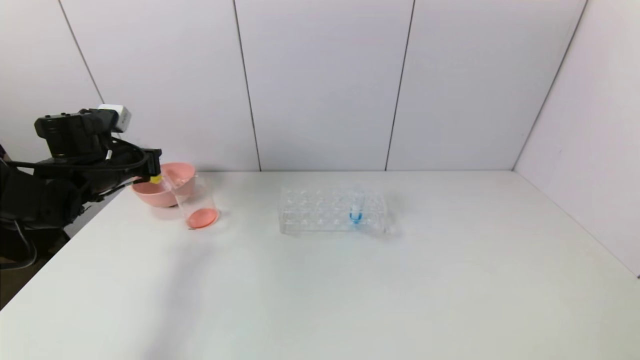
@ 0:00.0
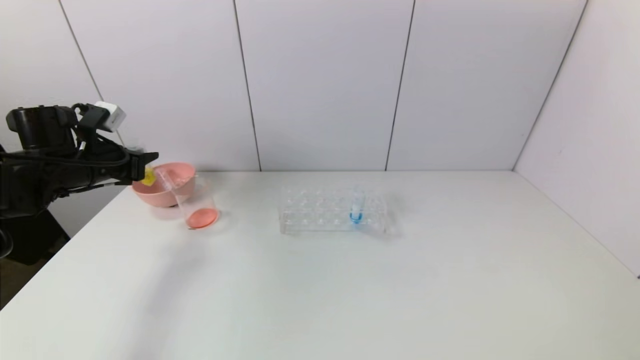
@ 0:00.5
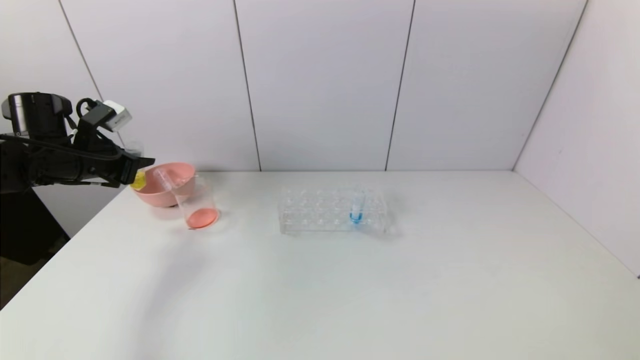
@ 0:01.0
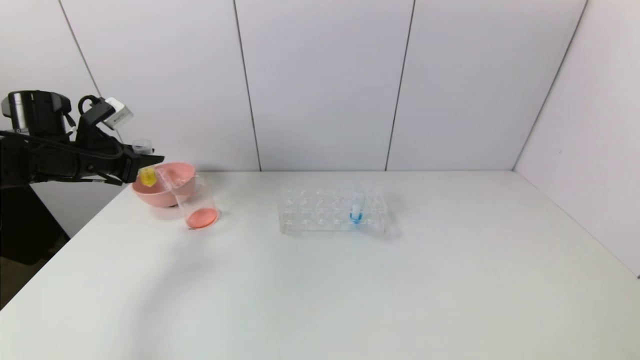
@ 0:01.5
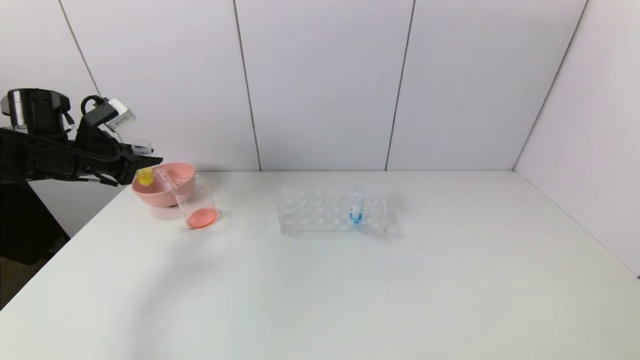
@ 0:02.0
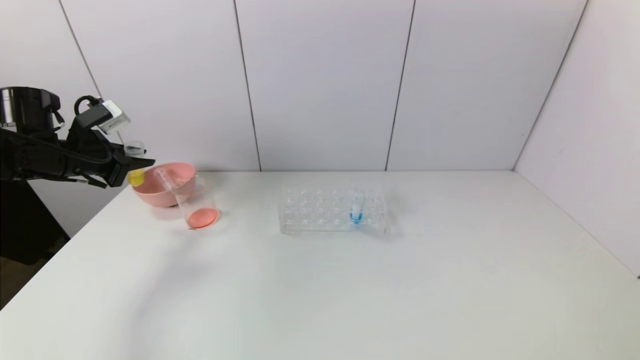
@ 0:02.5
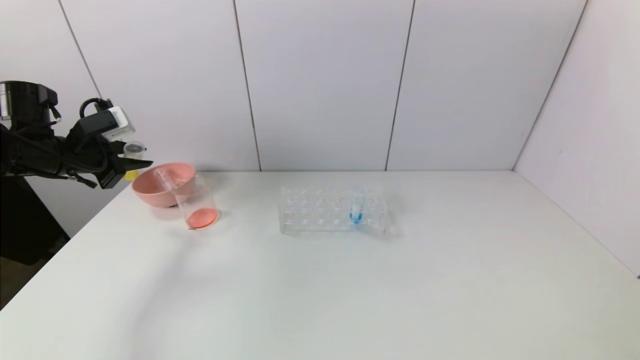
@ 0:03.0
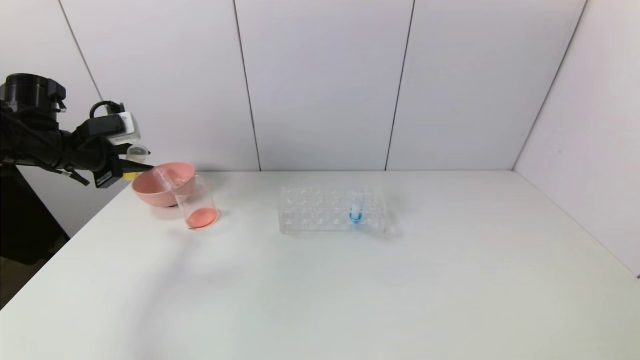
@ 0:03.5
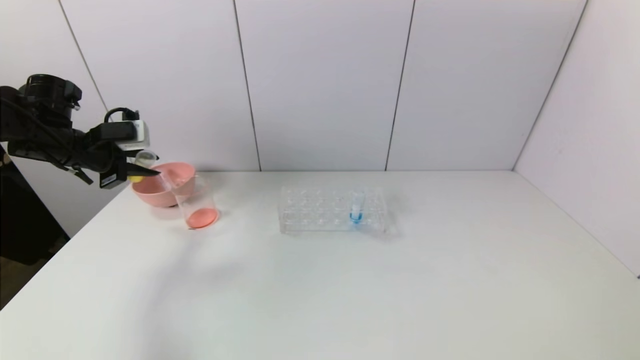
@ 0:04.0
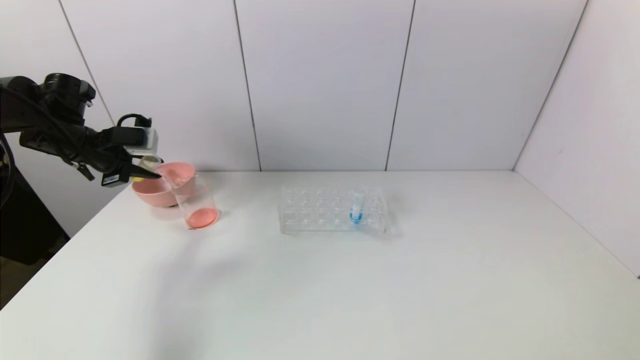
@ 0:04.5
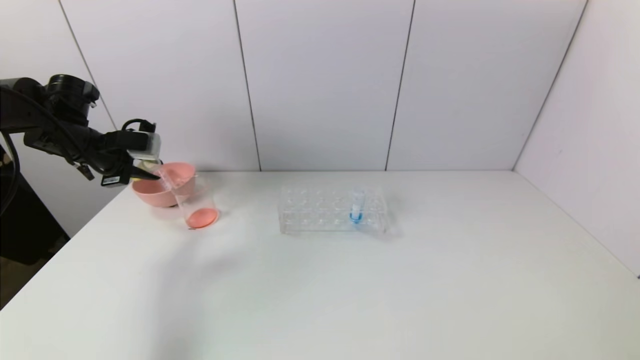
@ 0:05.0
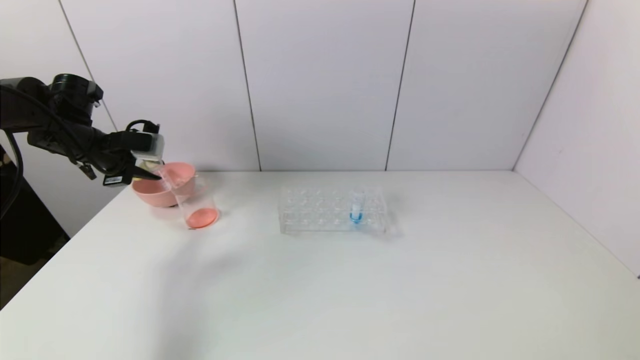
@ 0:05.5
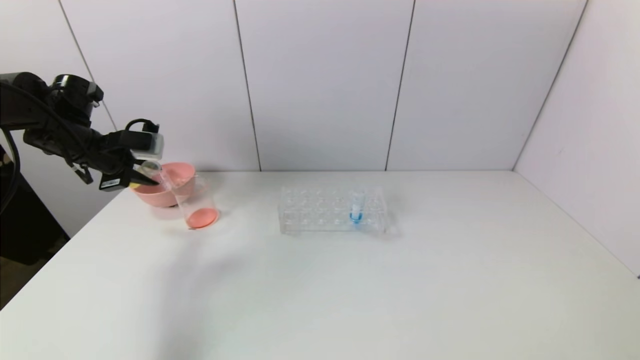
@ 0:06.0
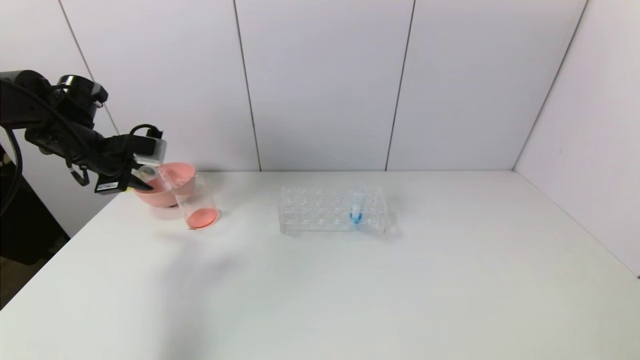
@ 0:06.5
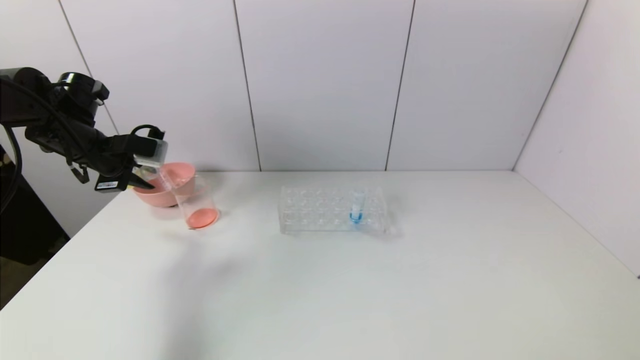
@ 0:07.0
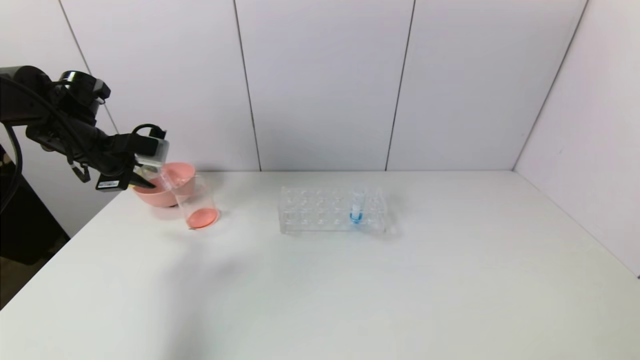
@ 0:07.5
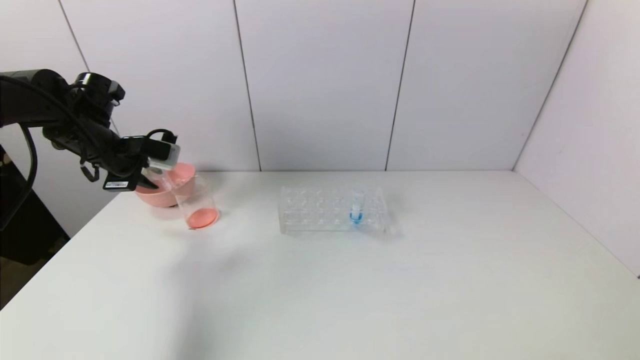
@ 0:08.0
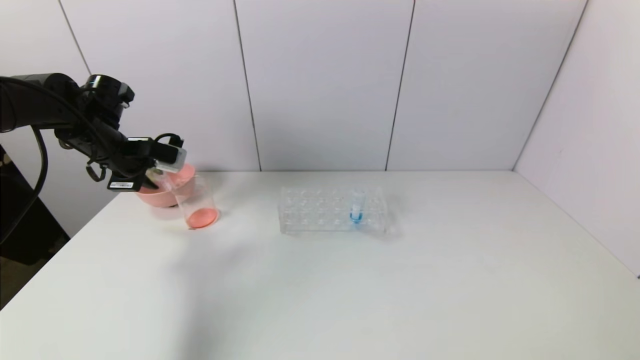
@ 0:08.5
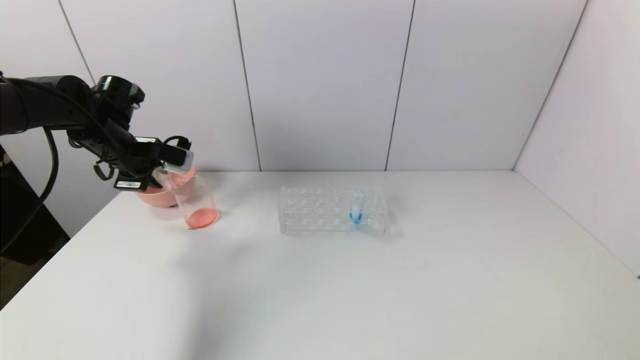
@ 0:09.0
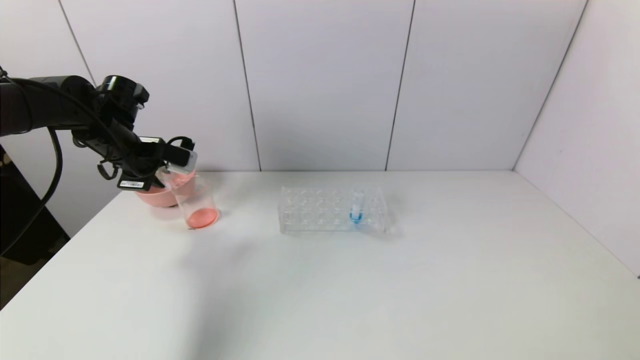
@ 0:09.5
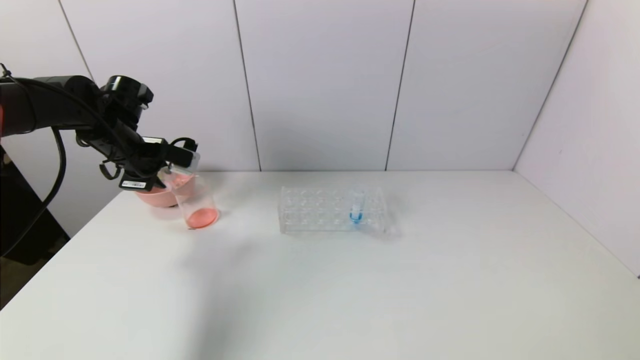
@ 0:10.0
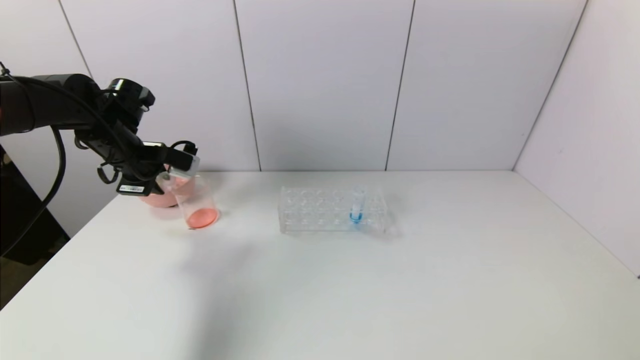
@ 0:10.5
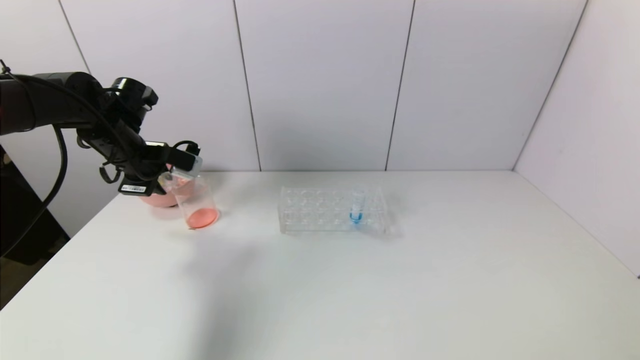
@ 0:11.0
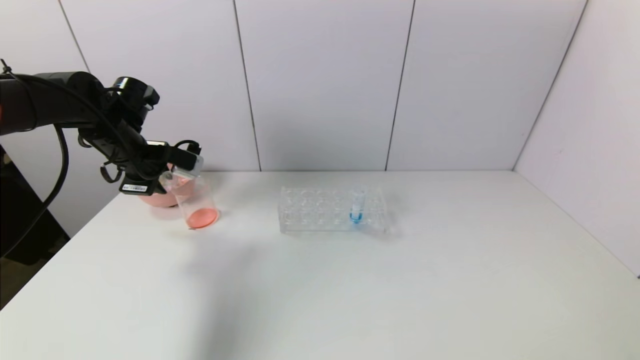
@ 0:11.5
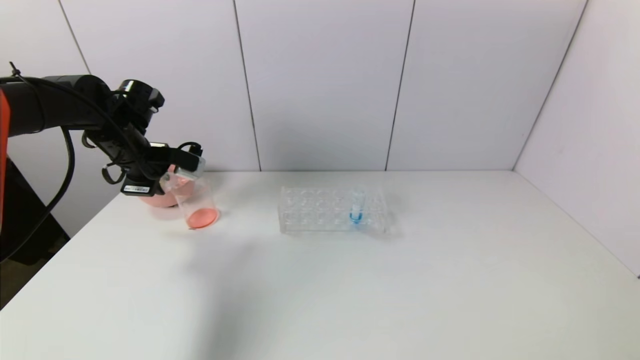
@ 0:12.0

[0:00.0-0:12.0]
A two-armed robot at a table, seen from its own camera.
Task of the whole recording: pick up the test tube with yellow pigment and the test tube with red pigment by grippers and pour them into the beaker.
0:04.0 to 0:06.0: The grippers move only a little.
0:06.0 to 0:08.0: The grippers stay close to where they were, moving slightly.
0:08.0 to 0:12.0: The grippers make only small movements.

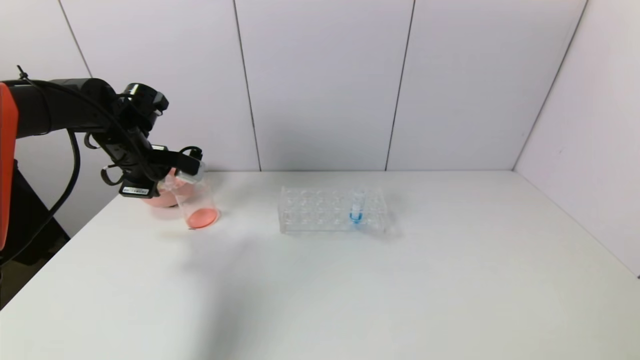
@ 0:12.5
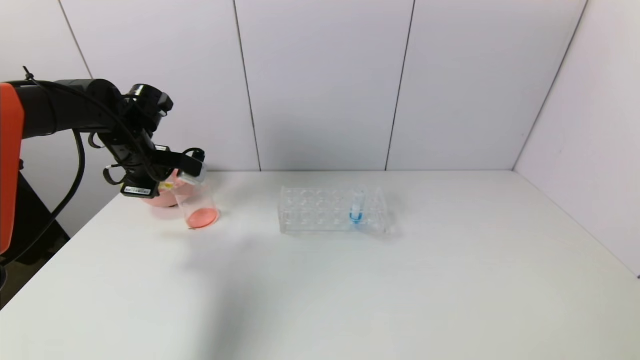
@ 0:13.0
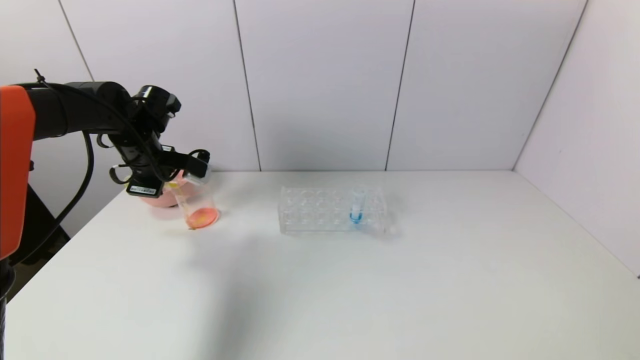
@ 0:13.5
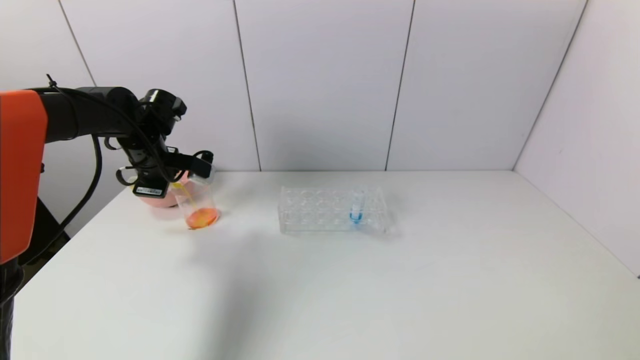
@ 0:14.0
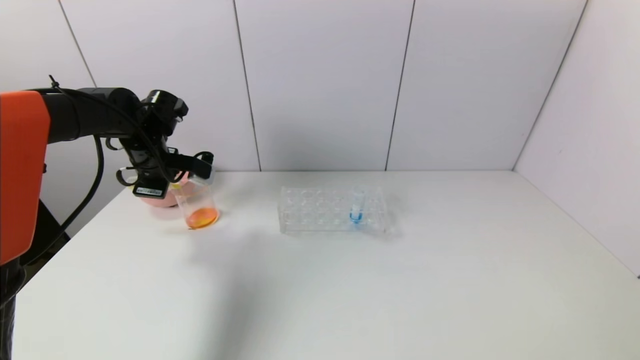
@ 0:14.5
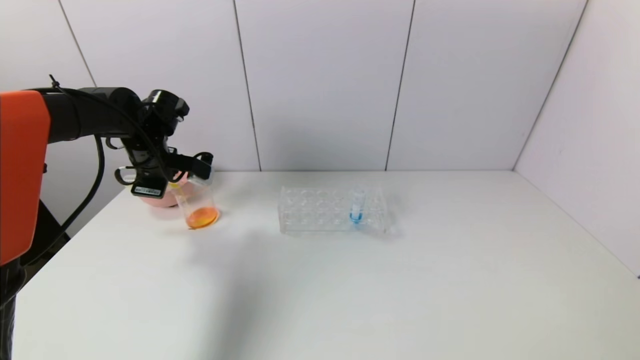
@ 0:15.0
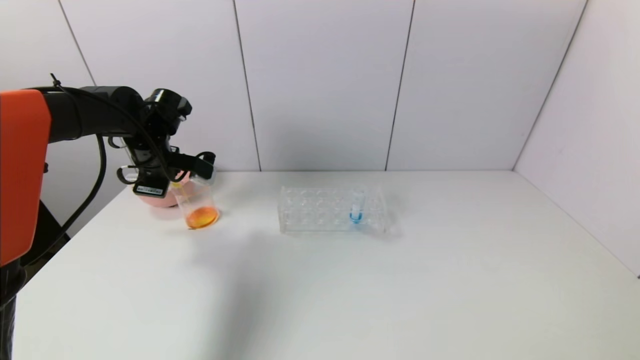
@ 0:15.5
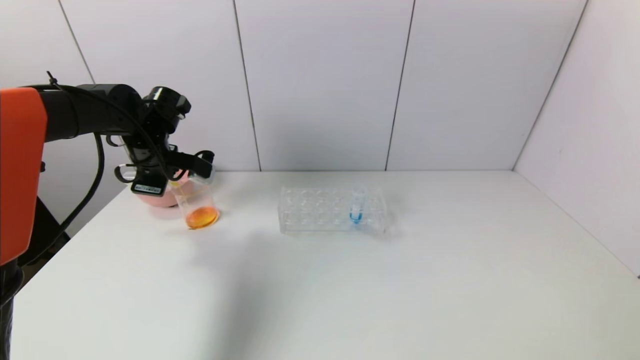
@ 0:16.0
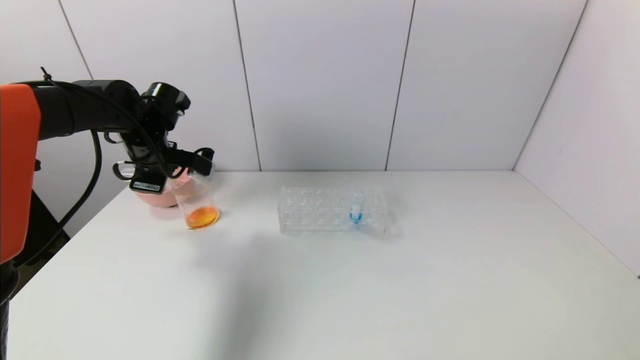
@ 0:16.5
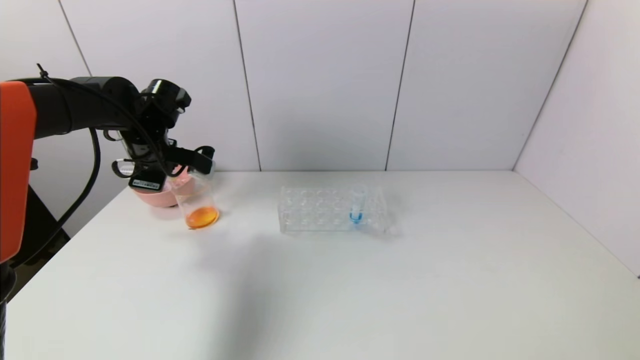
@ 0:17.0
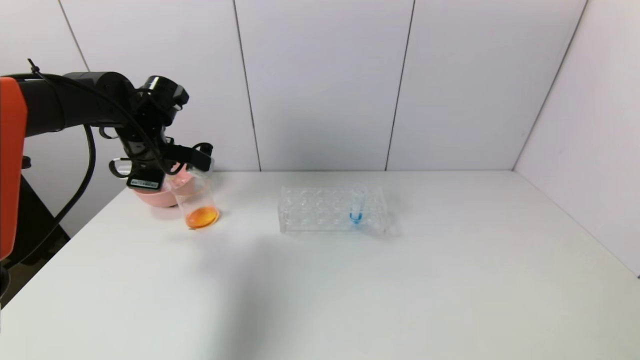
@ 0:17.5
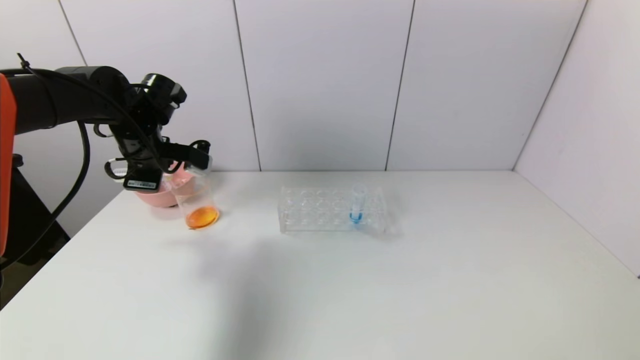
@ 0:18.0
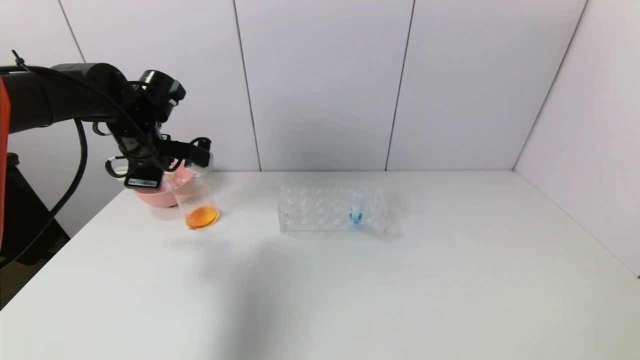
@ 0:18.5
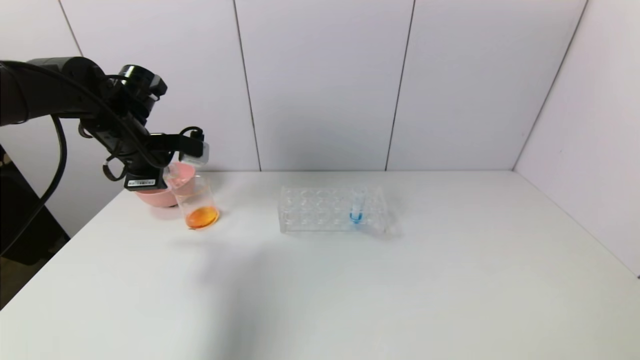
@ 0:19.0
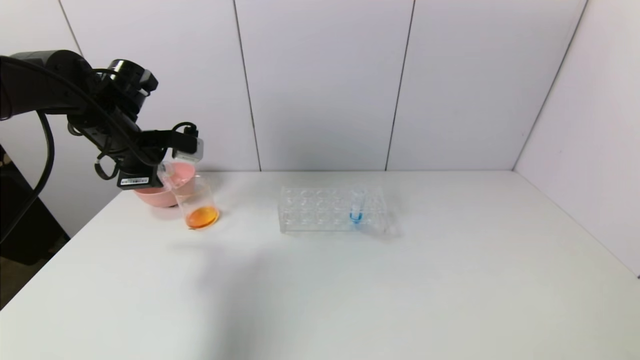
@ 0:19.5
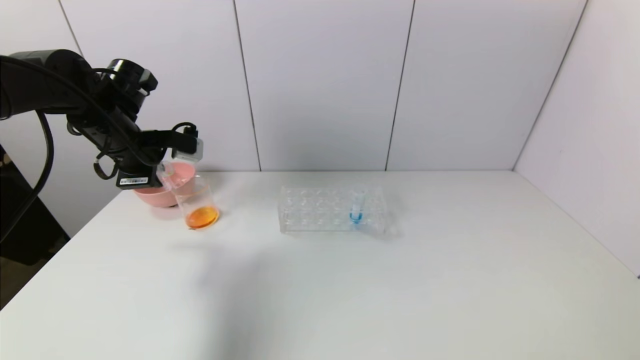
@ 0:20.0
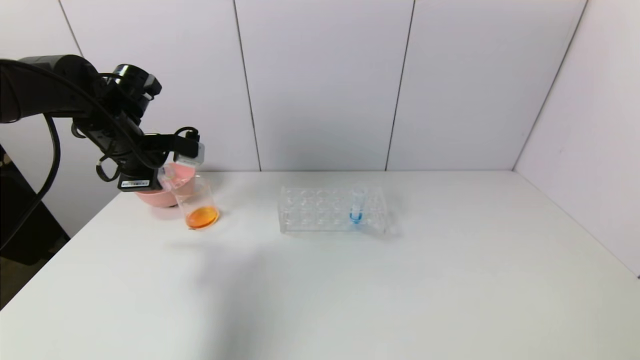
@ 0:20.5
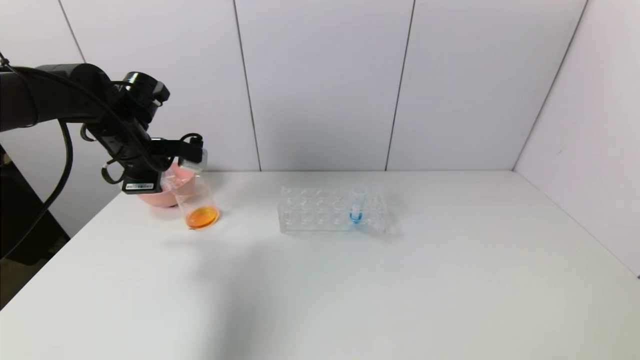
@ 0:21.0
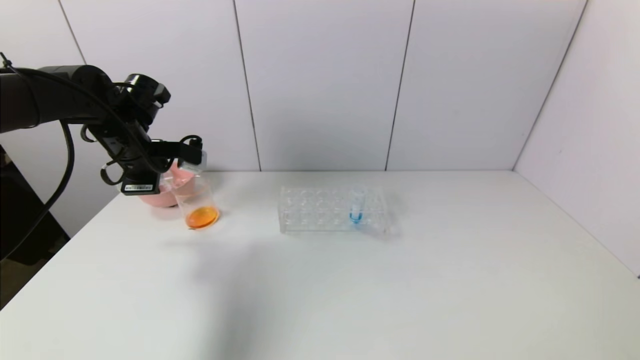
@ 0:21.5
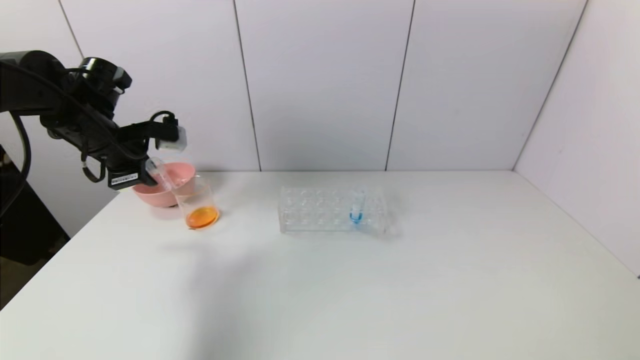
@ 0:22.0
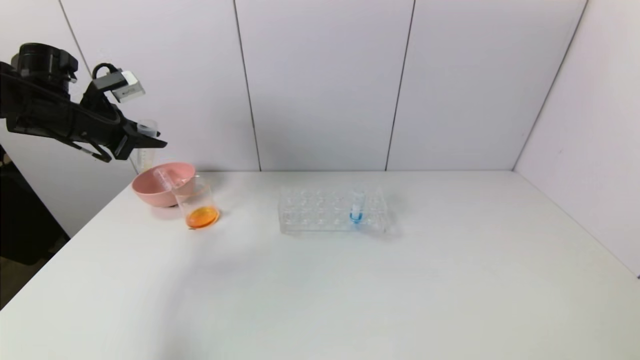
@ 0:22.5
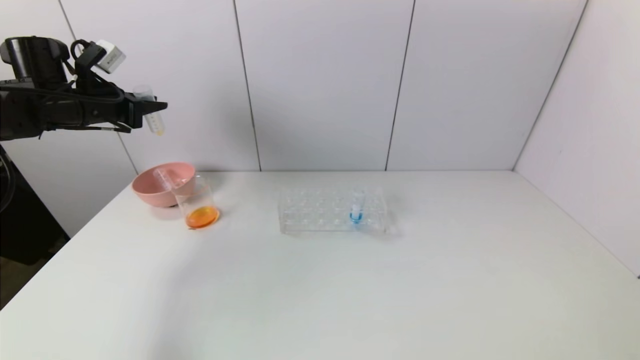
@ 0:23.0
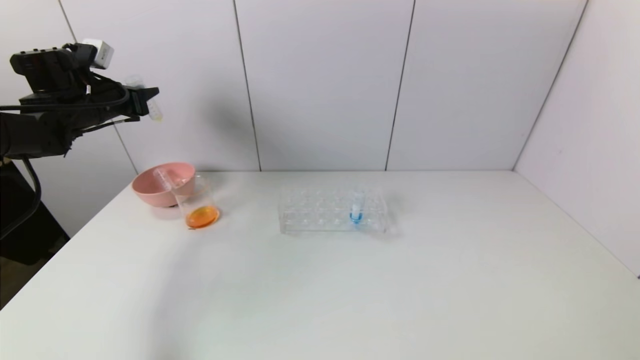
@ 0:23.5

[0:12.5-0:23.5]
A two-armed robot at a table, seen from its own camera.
Task of the whole recording: pick up the test tube with yellow pigment and the test tube with red pigment by grippers and pour them into the beaker.
Step, 0:12.5 to 0:17.0: Pour the yellow reagent into the graduated cylinder with the left gripper.
0:12.5 to 0:14.5: The grippers stay close to where they were, moving slightly.
0:14.5 to 0:16.0: Both grippers stay about where they are.
0:16.0 to 0:21.5: The grippers stay close to where they were, moving slightly.
0:21.5 to 0:23.5: The left gripper shifts some 10 cm to the left and forward.
